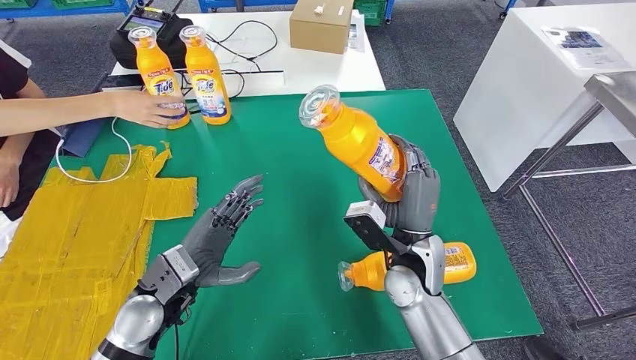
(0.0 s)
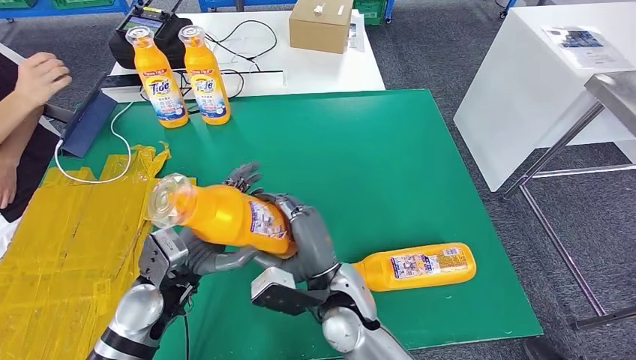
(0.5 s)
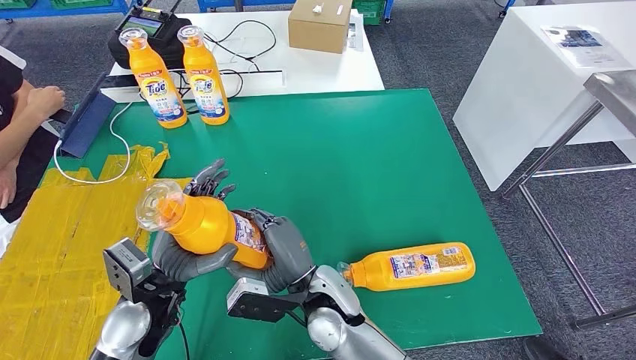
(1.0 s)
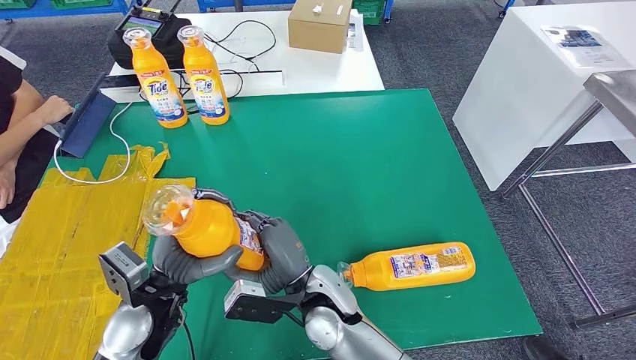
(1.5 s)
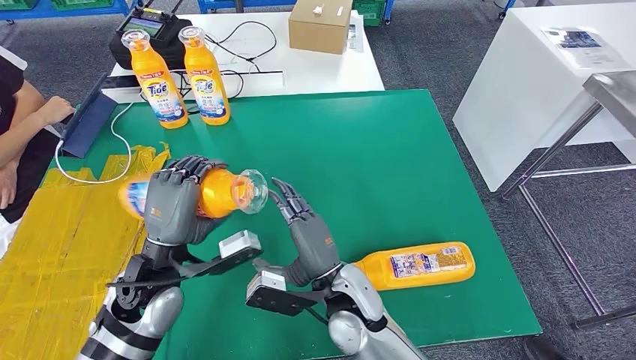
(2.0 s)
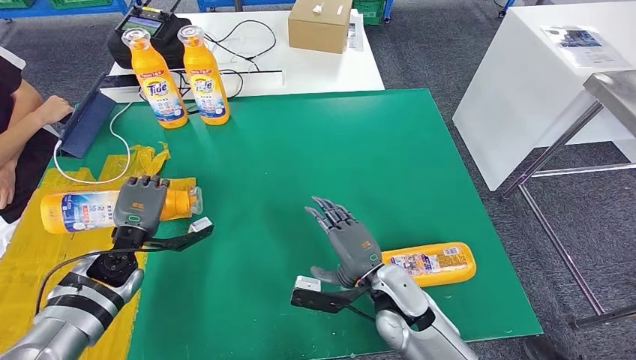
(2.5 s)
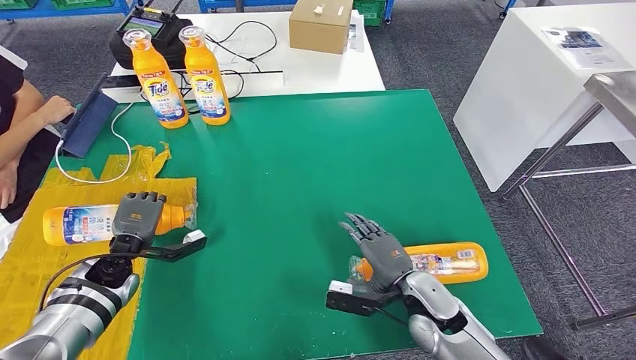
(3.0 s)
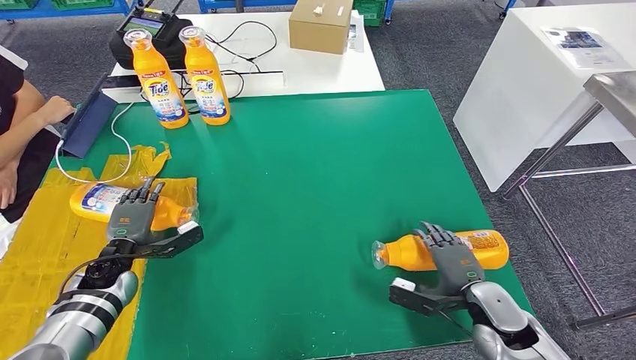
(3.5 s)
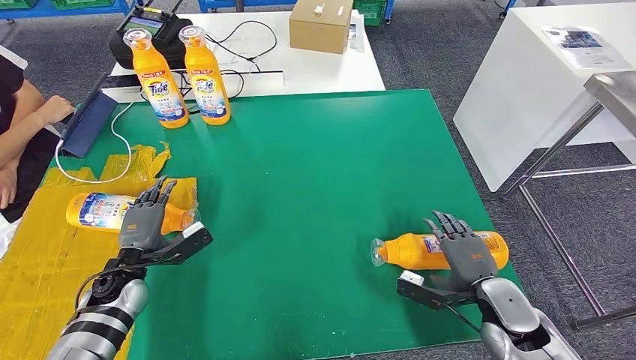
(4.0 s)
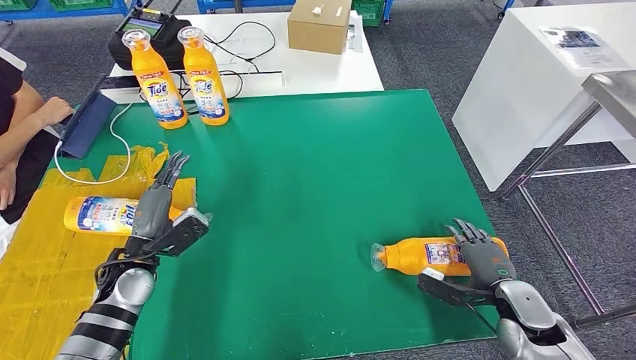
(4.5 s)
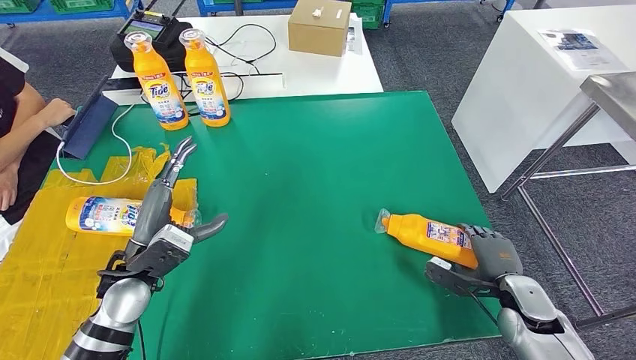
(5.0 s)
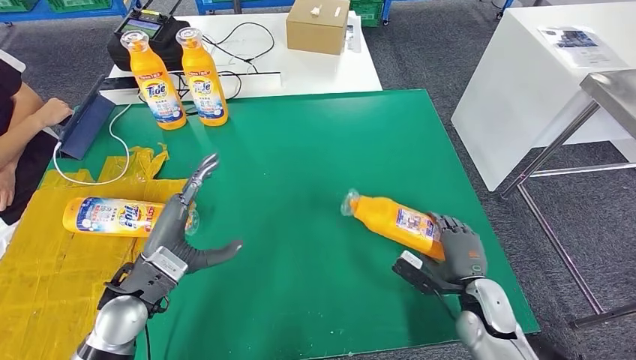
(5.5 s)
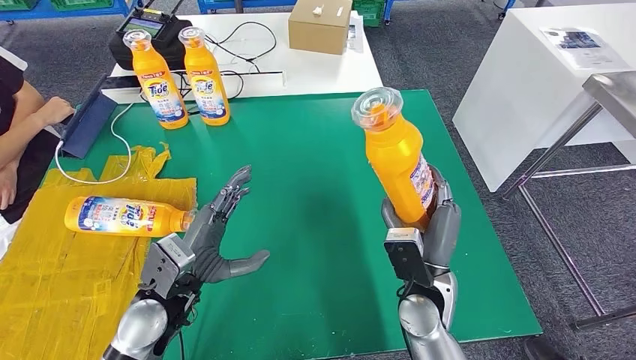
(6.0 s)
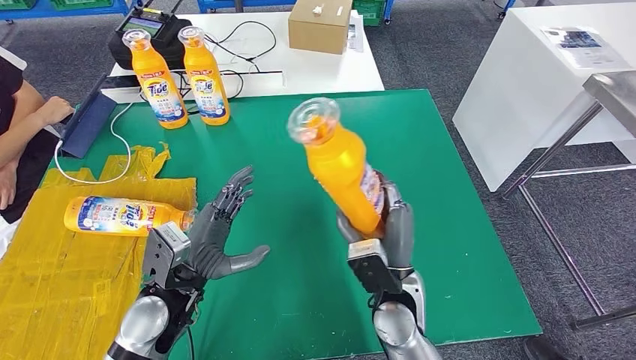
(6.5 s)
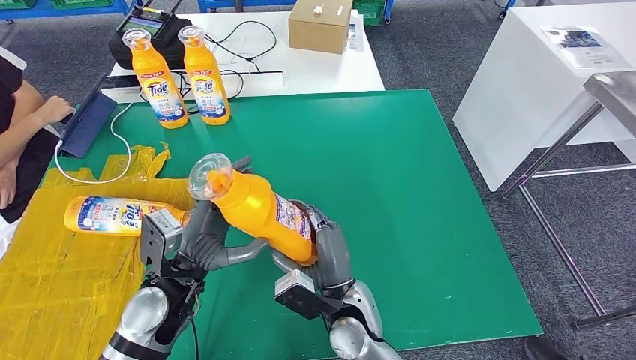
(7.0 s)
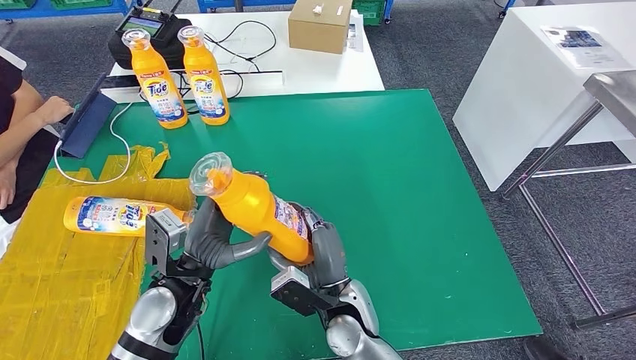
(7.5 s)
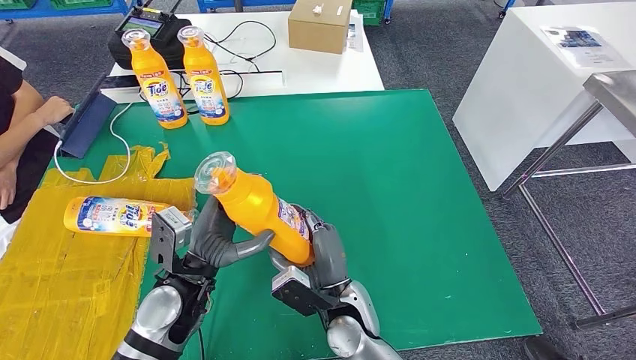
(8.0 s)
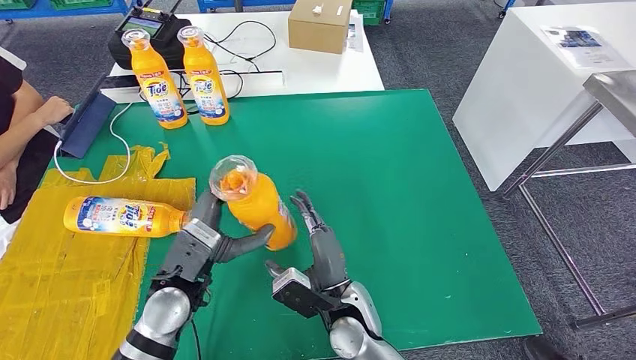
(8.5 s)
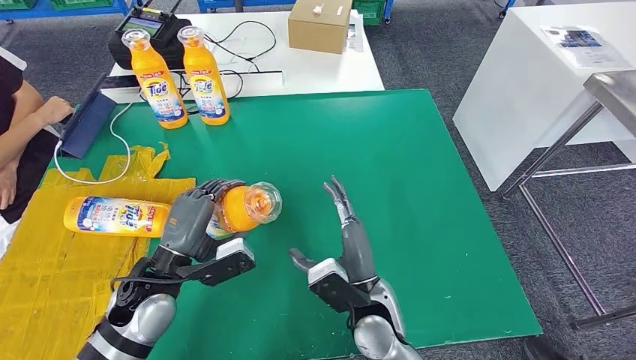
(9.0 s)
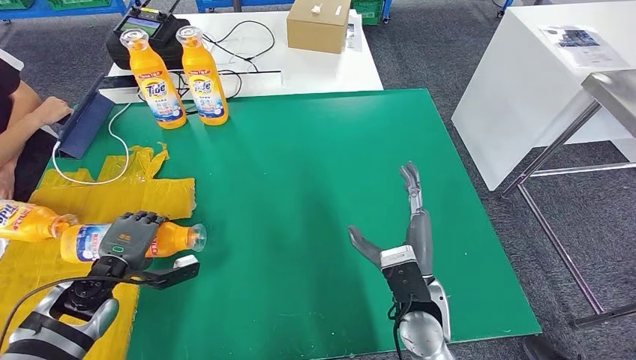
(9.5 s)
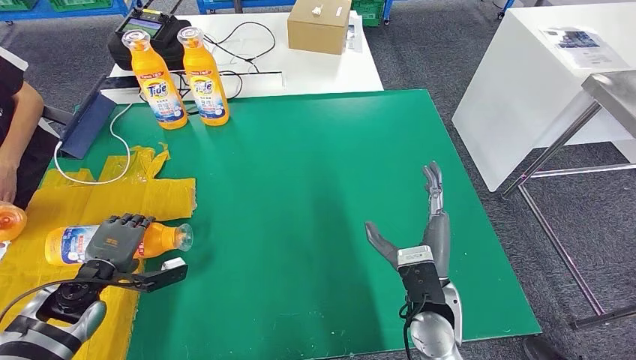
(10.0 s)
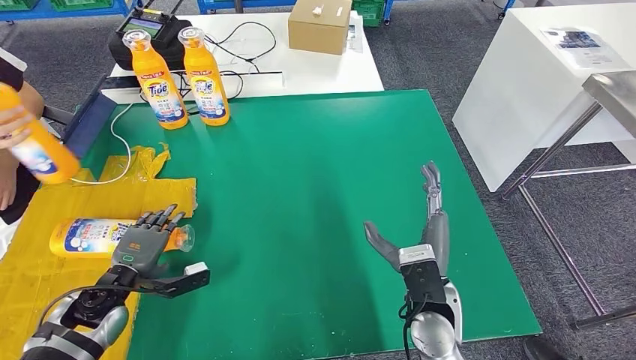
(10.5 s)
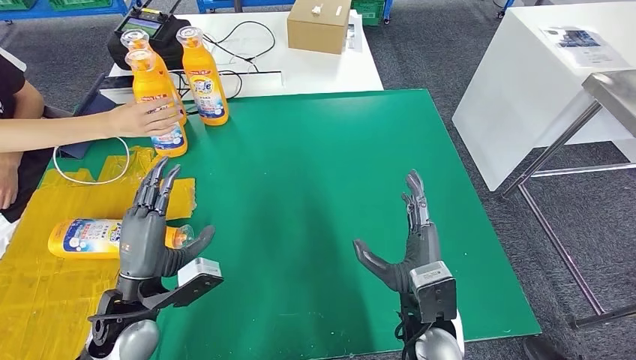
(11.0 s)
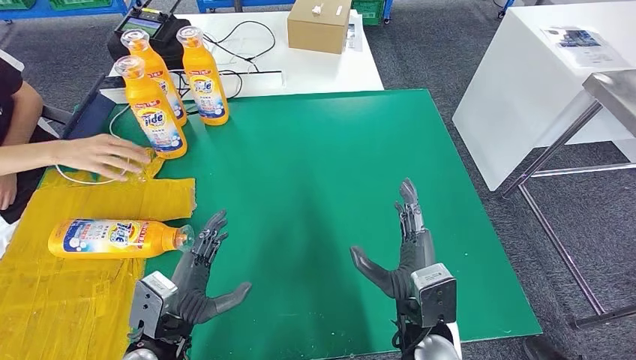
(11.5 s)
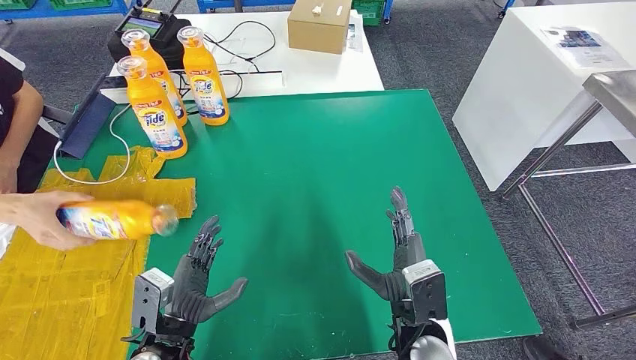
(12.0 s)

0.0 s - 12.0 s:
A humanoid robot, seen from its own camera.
Step, 1.5 s - 5.0 s: Flip the fast-moving consumer goods bottle to the front side.
Step, 5.5 s - 7.5 s: Pick up the fast-moving consumer goods bottle from the table.
Step, 8.0 s - 12.0 s: Flip the fast-moving consumer goods bottle to the front side.
6.0 s - 8.0 s: The right hand shifts roughly 10 cm to the left.
10.0 s - 12.0 s: The left hand heads to the right and backward, covering approximately 20 cm.
